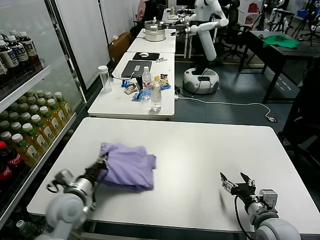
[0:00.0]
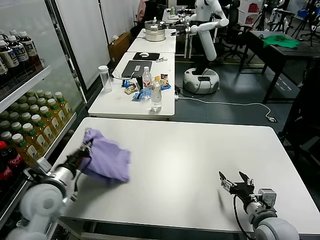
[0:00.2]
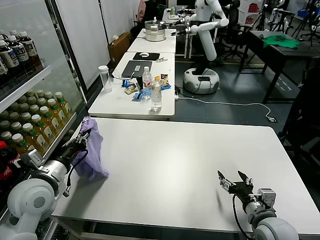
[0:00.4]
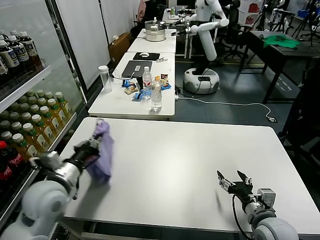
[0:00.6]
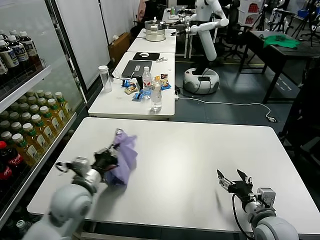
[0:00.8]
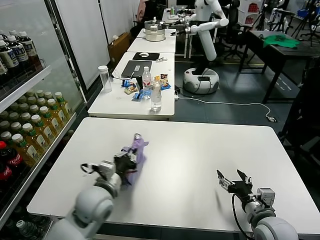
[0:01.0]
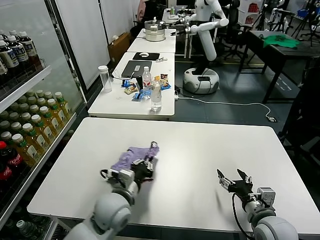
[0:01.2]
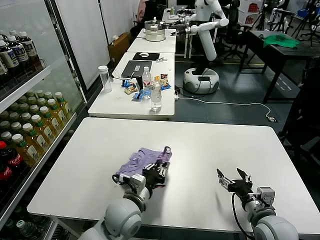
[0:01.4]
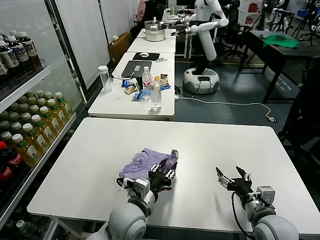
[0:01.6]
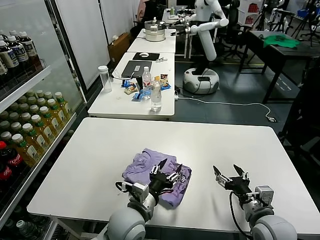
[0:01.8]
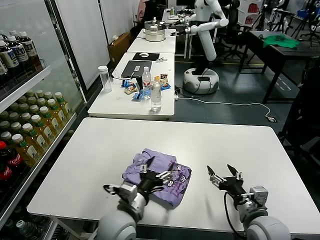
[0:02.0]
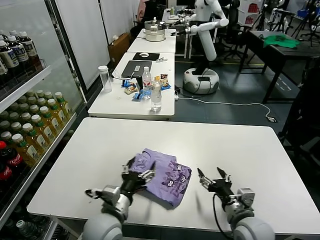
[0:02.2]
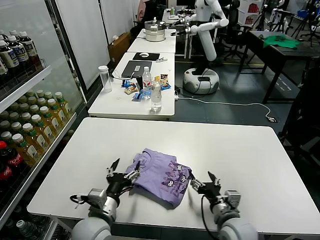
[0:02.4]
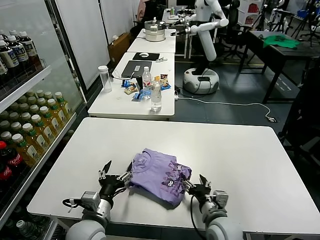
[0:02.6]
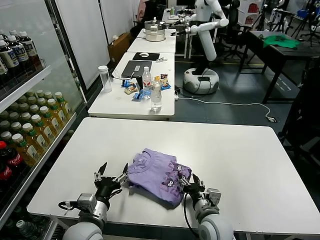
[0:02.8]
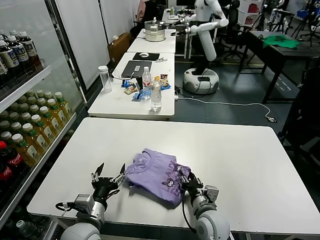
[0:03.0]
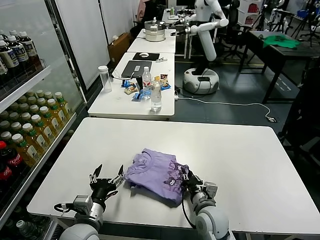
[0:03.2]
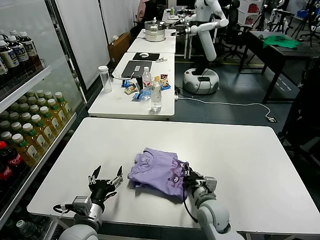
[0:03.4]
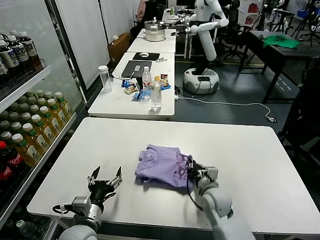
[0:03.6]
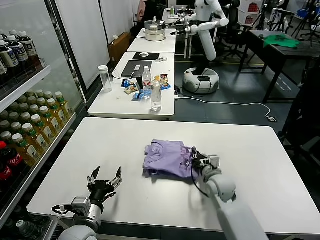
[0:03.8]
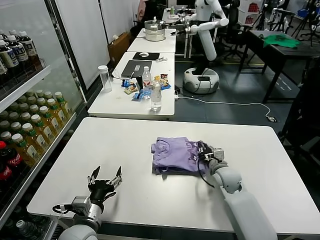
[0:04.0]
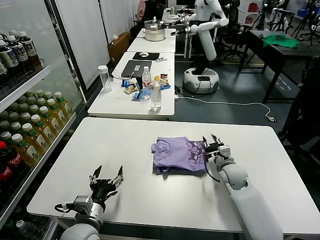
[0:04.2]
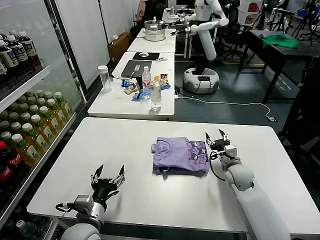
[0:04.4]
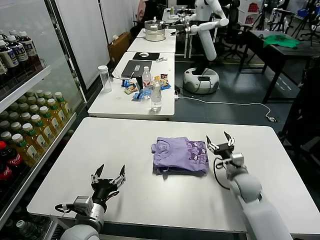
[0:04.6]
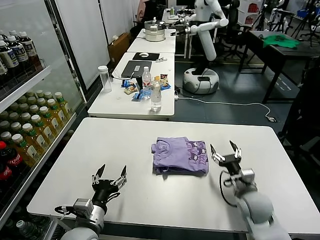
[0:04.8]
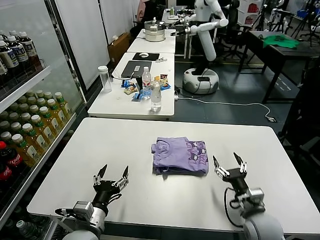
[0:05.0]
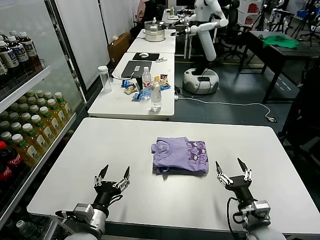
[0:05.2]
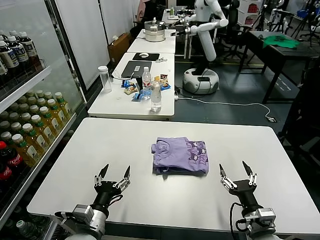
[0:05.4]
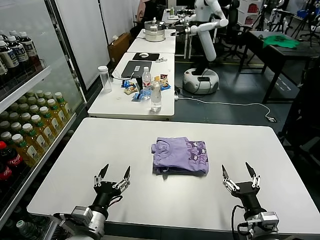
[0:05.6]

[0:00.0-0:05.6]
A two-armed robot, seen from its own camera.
Task of the whole recording: fold and organize the clothes.
Step, 0:00.0 to 0:02.0: Flip the folded clothes over with left gripper.
Step, 0:02.2 to 0:04.0: Drag the clothes to the center of the table.
0:00.0 to 0:01.4: The left gripper is displaced to the right by about 15 cm.
0:01.4 to 0:02.8: The left gripper shifts approximately 10 cm to the left and backward, and opens up. The right gripper goes some 15 cm to the left and downward.
0:02.8 to 0:04.2: The right gripper heads forward and to the right, covering about 20 cm, and closes its fingers.
0:04.2 to 0:05.6: The right gripper moves backward, approximately 25 cm, and opens.
